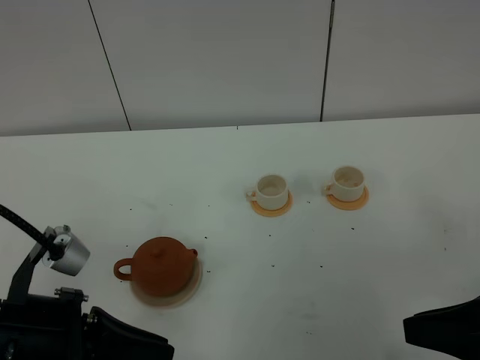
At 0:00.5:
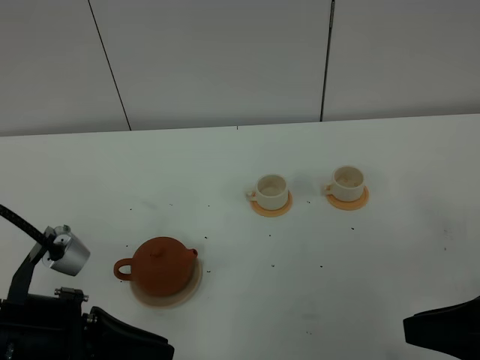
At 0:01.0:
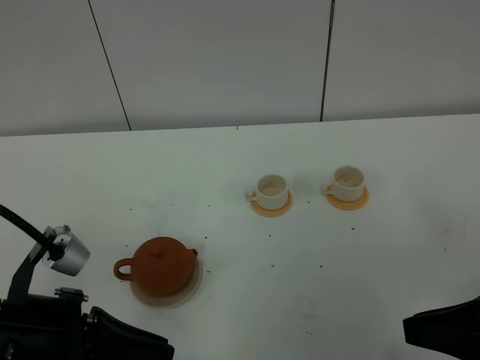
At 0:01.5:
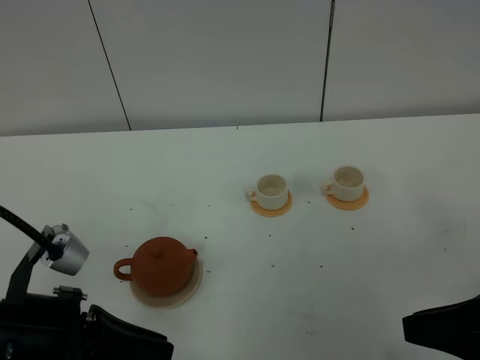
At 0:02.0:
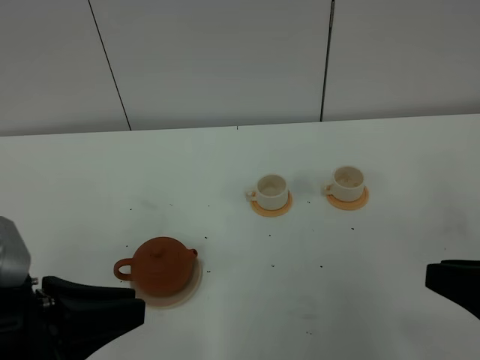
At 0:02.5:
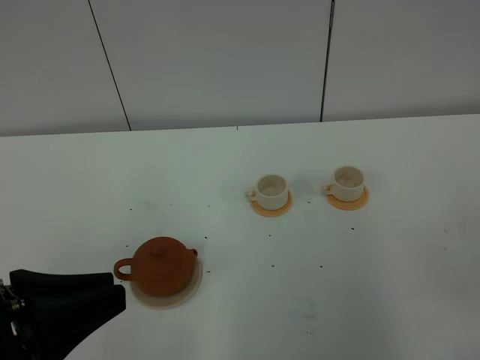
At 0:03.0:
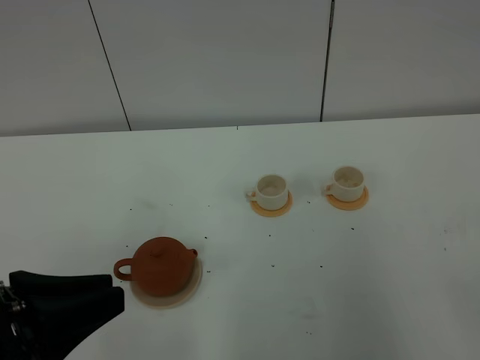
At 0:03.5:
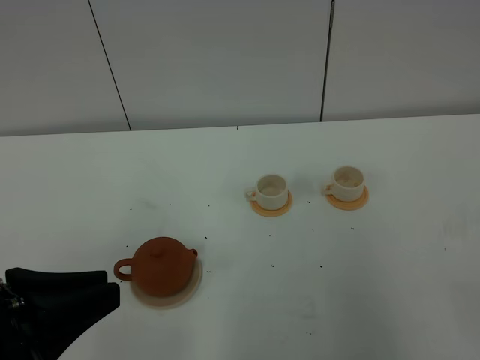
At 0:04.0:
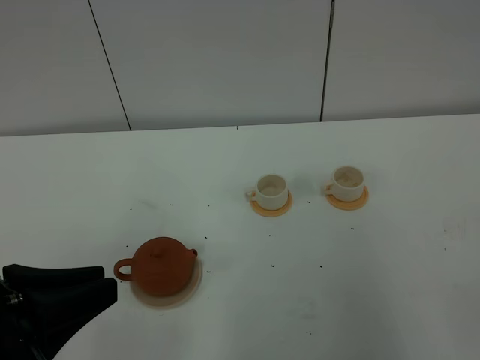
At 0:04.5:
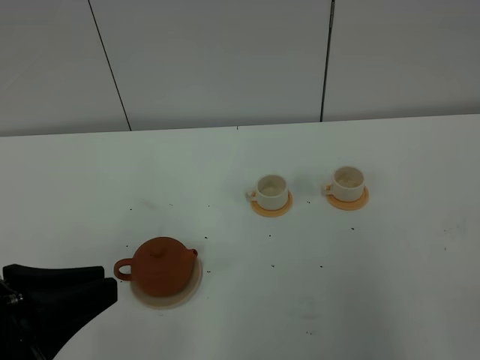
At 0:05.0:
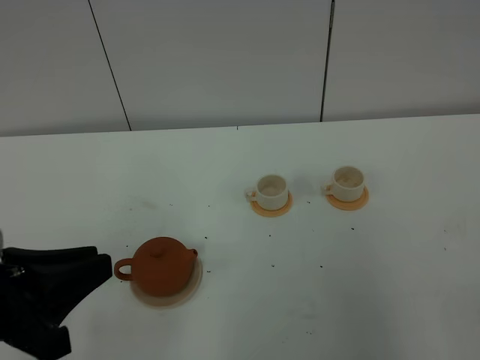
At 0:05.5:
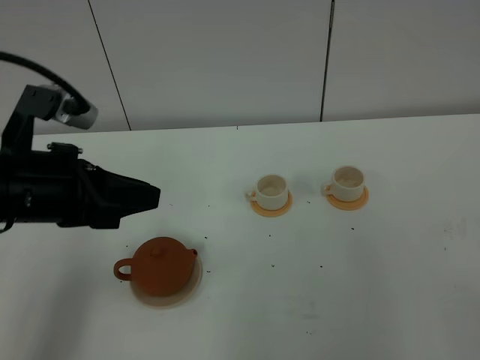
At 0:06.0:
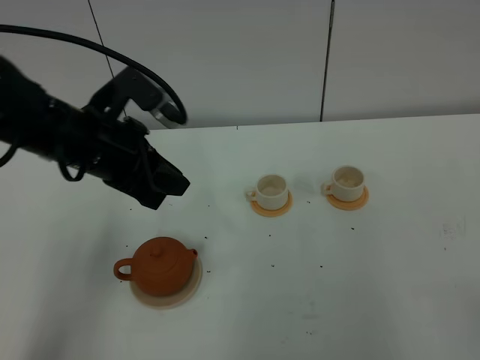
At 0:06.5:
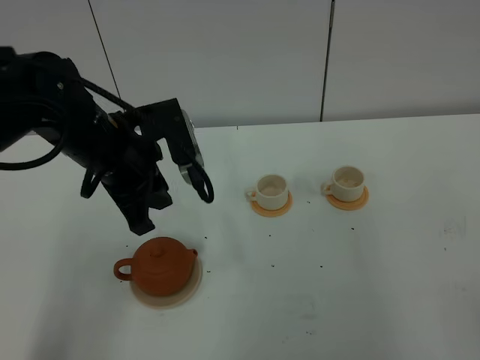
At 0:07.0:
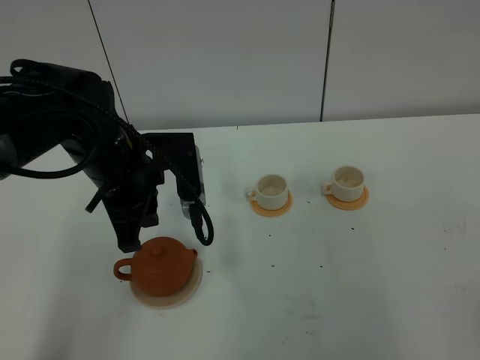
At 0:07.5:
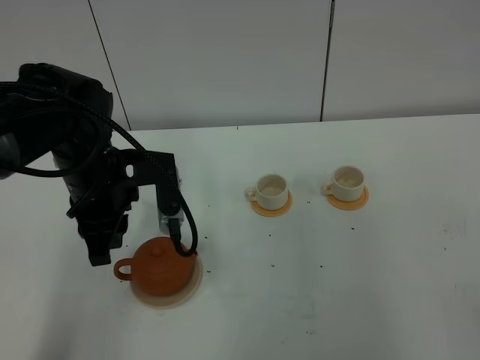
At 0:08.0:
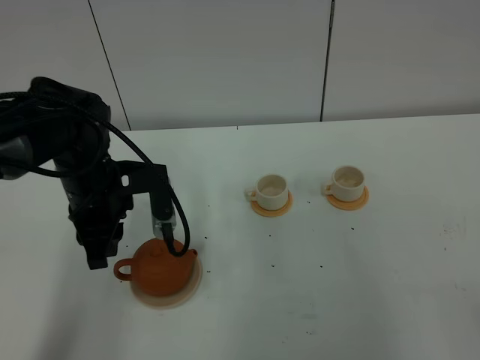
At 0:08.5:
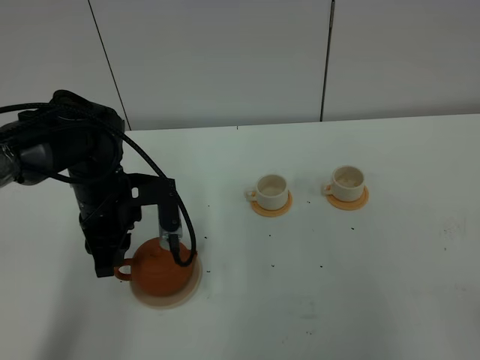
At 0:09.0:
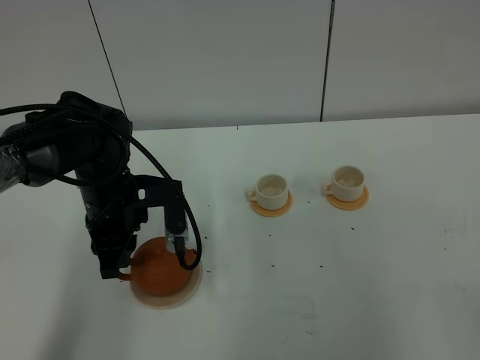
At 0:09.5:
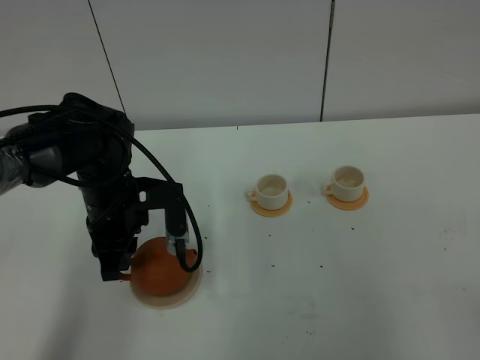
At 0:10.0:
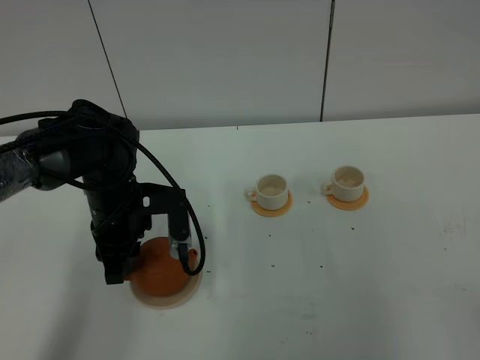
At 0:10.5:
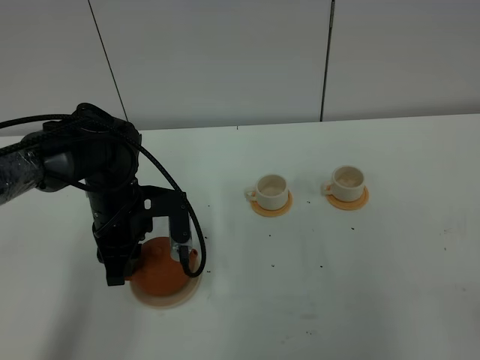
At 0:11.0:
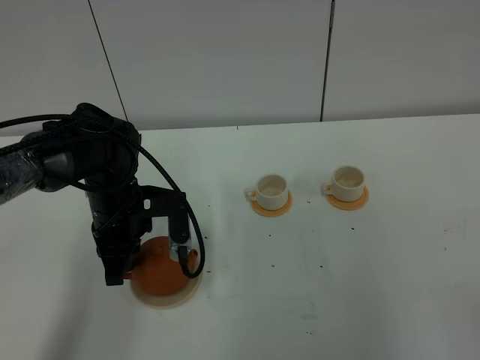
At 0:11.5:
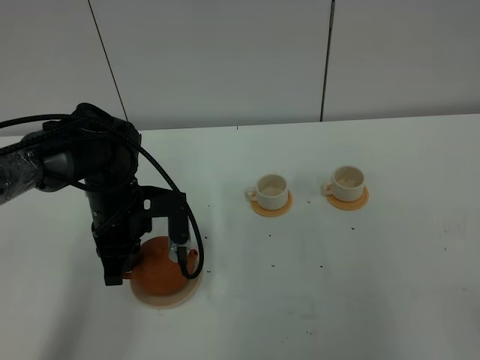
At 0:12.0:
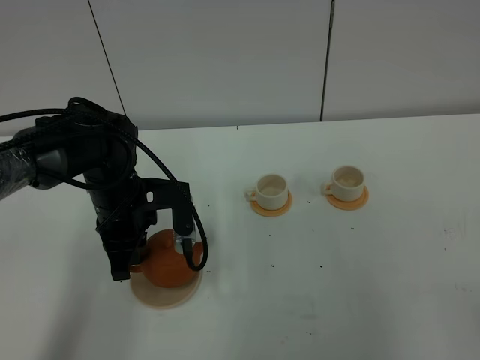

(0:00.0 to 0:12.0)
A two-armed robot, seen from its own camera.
Task of the whole recording: grasp the brown teapot and pour the tea into the two white teacups one by one, put the brown teapot back in its original place.
0:02.0 - 0:04.0: The right gripper travels backward by approximately 10 cm.
0:04.0 - 0:06.0: The left gripper goes some 25 cm forward.
0:06.0 - 0:08.0: The left gripper moves downward, some 10 cm.
0:08.0 - 0:10.0: The grippers stay close to where they were, moving slightly.
0:10.0 - 0:12.0: The left gripper closes.

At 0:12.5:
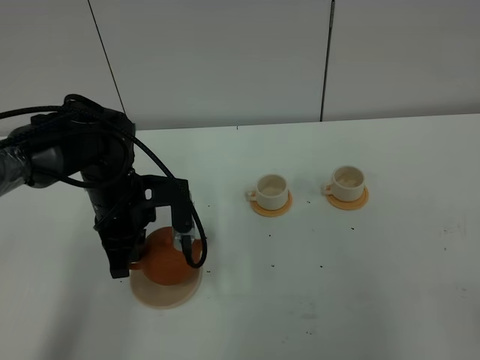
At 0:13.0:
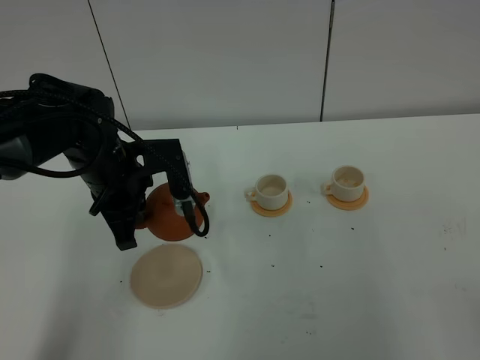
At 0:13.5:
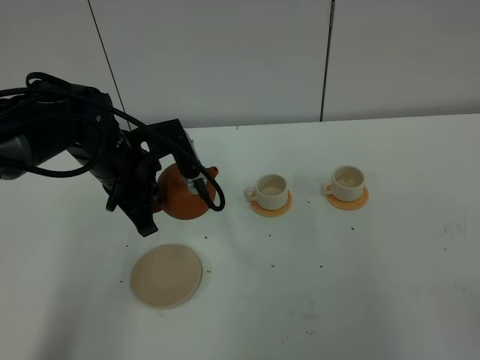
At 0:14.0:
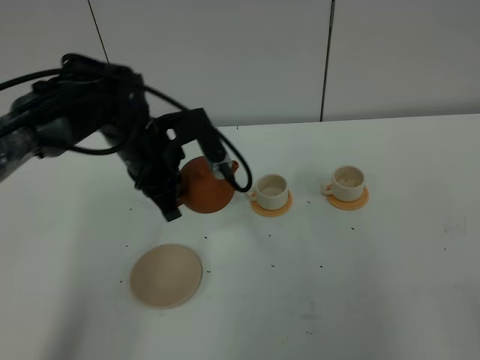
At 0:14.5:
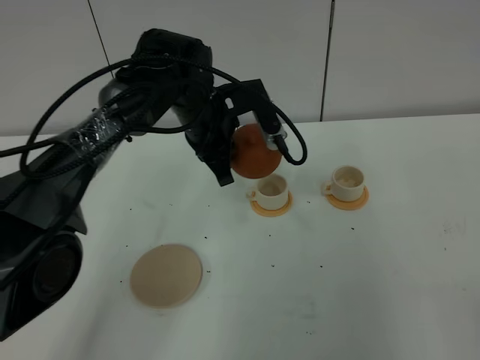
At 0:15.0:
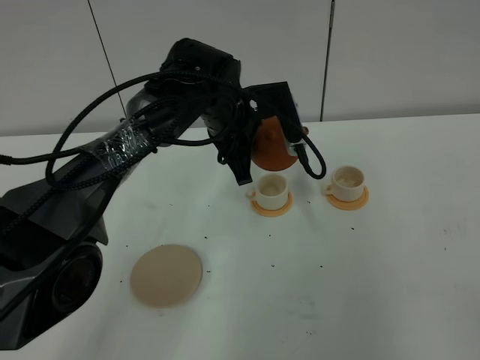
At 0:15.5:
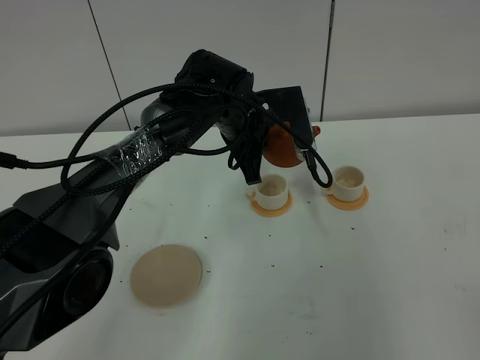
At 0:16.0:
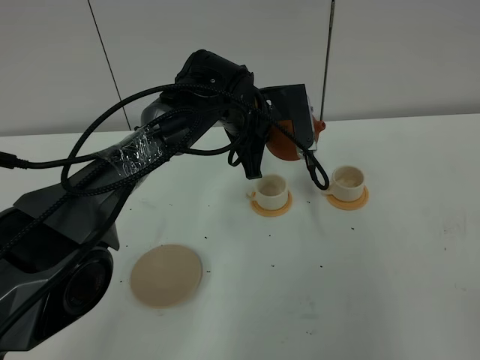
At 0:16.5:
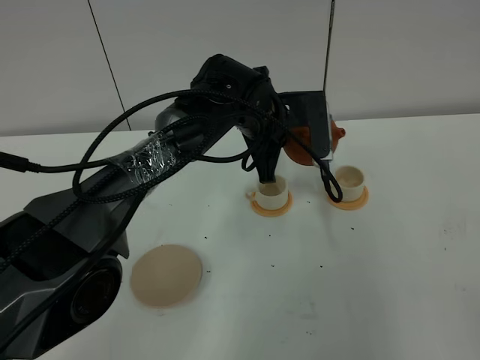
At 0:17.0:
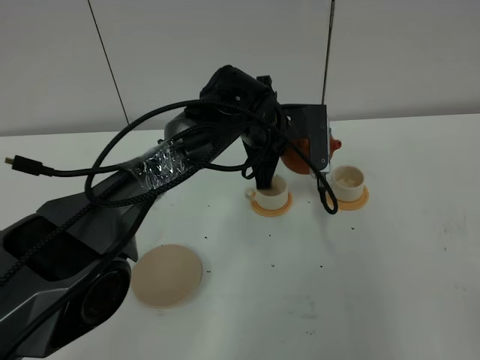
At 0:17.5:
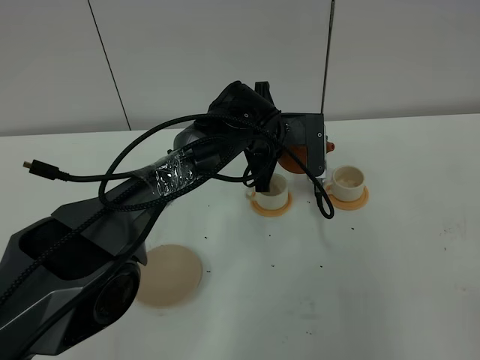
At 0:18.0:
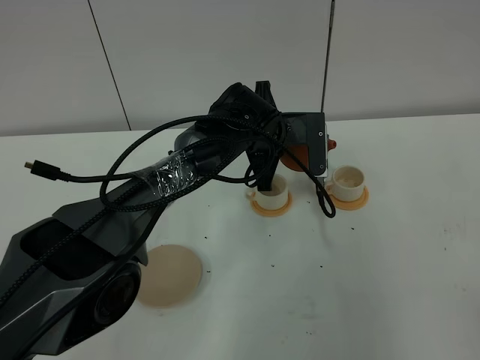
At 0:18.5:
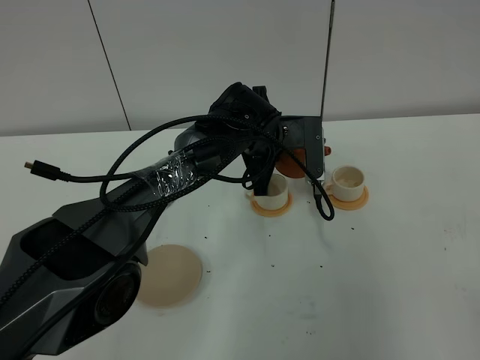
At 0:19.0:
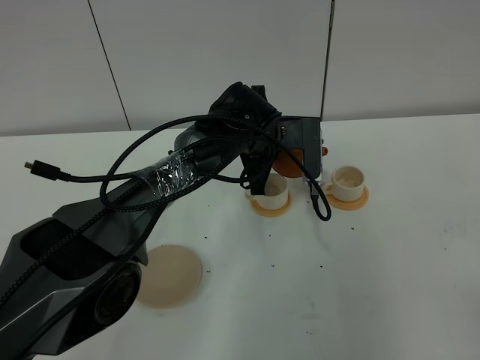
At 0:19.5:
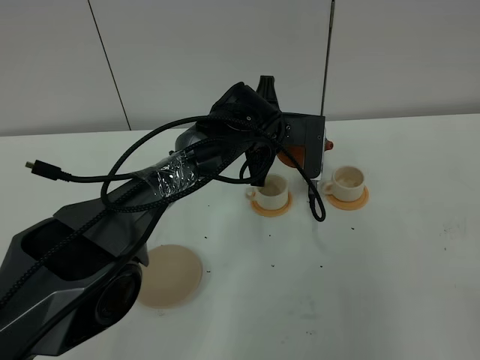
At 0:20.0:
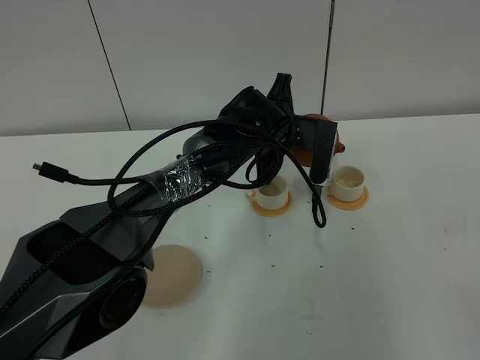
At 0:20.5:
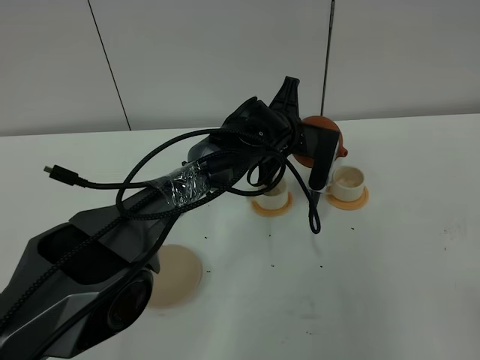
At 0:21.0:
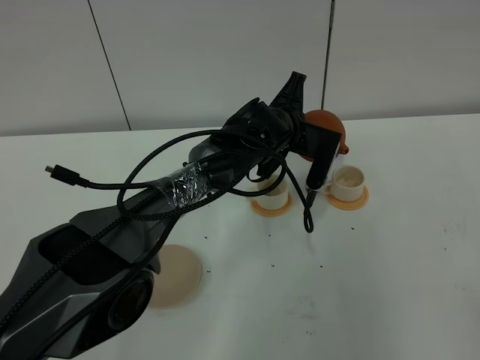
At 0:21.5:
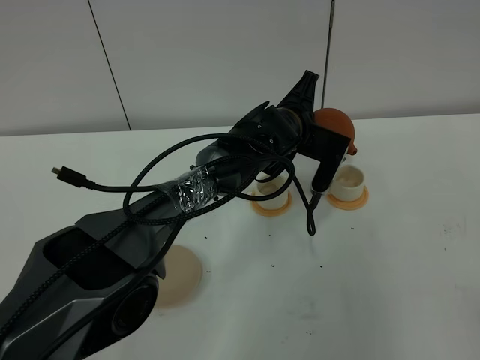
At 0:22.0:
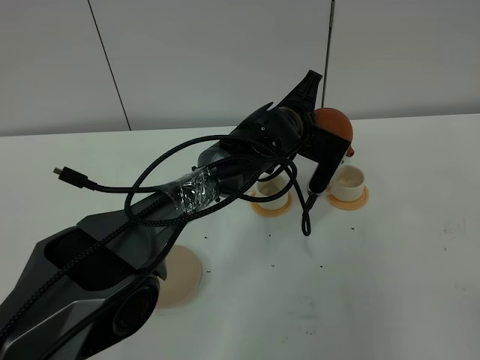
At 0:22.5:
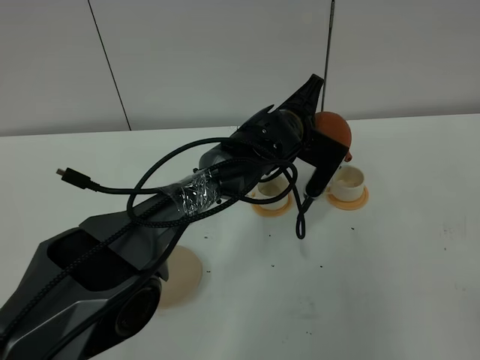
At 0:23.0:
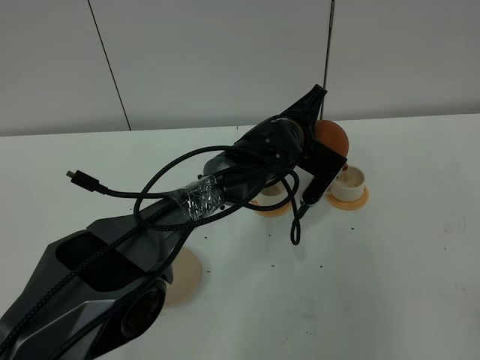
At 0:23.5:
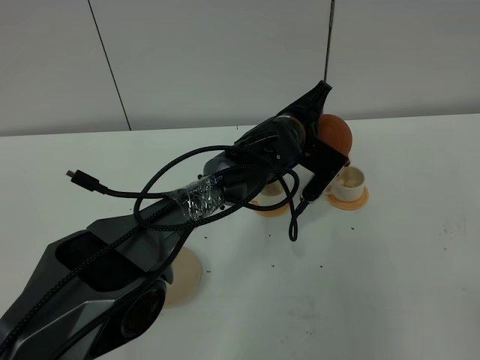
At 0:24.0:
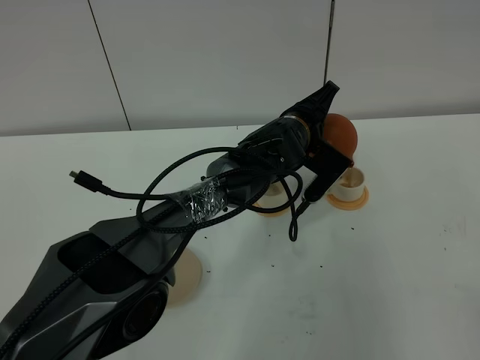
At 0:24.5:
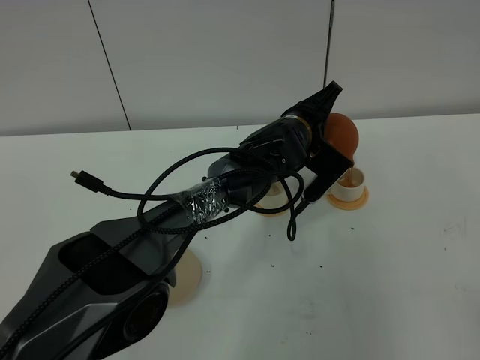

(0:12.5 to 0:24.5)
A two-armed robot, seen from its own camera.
Task of the whole recording: grasp the brown teapot and pour the tea into the two white teacups one by one, put the brown teapot back in its original place.
0:12.5 - 0:14.5: The left gripper goes roughly 15 cm to the right and forward.
0:14.5 - 0:16.5: The left gripper travels to the right by about 5 cm.
0:16.5 - 0:18.5: The grippers stay close to where they were, moving slightly.
0:20.5 - 0:22.5: The grippers move only a little.
0:22.5 - 0:24.5: There are only small adjustments of the grippers.

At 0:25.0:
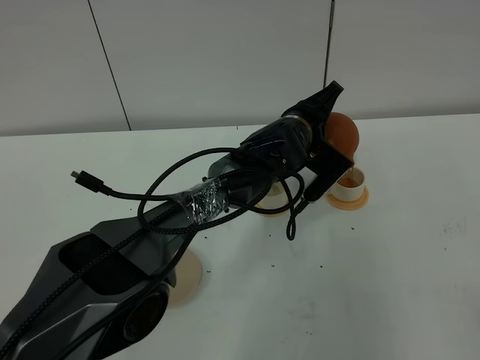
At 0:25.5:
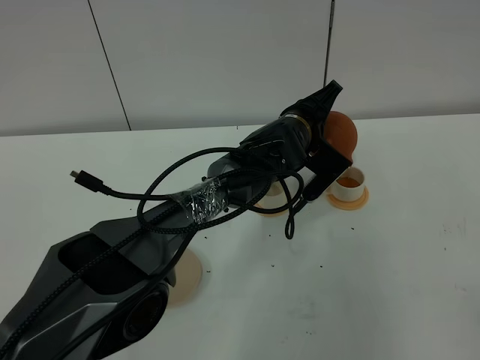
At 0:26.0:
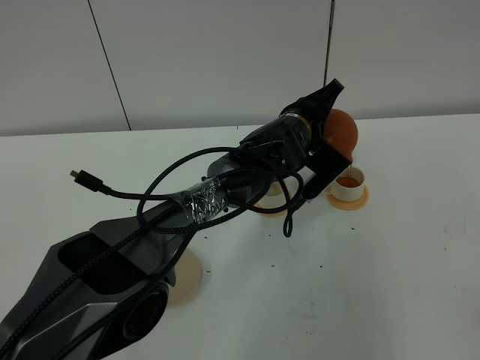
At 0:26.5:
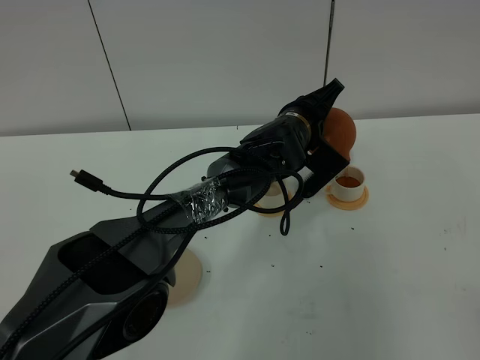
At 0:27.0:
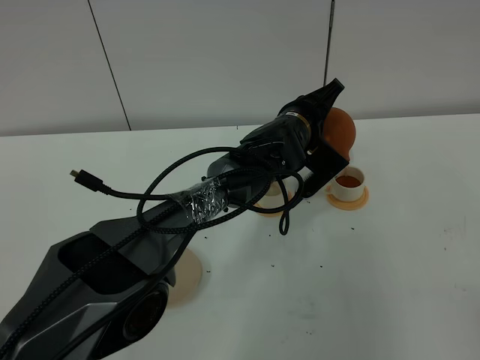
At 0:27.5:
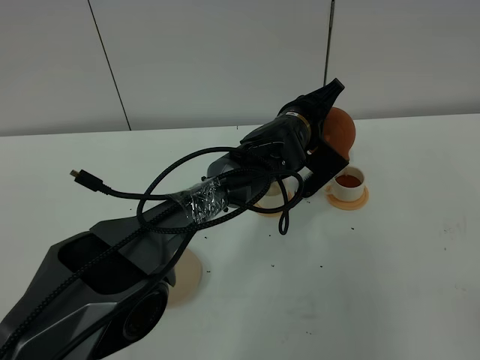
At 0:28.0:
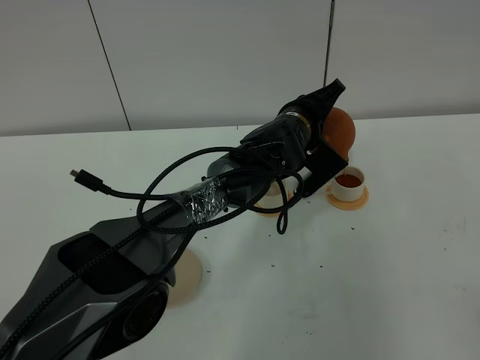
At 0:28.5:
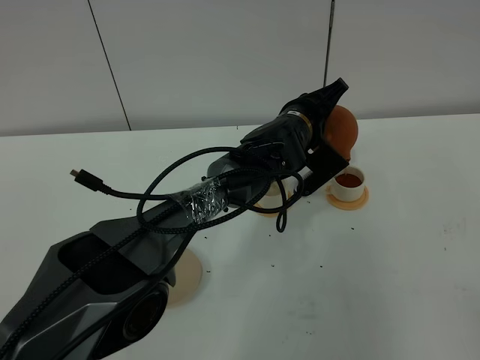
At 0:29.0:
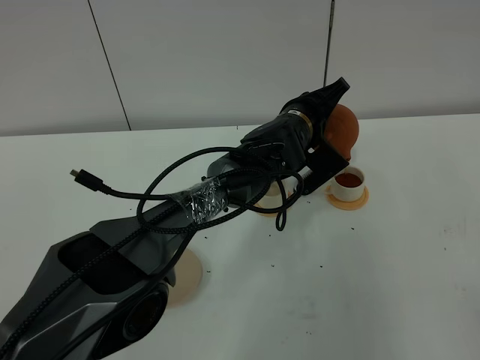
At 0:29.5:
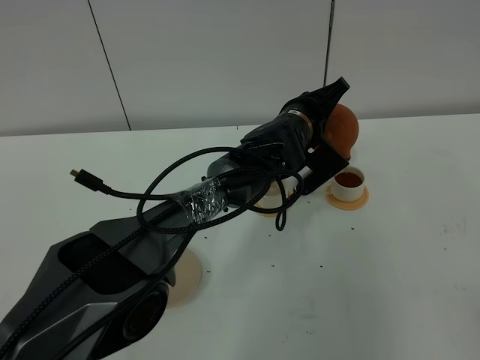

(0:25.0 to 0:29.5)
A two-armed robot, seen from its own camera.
Task of the whole recording: grasp the brown teapot and pour the tea into the two white teacups one by one, put the brown teapot back in its original place.
0:25.0 - 0:27.0: The two grippers keep their place.
0:27.0 - 0:29.5: Neither gripper changes place.
